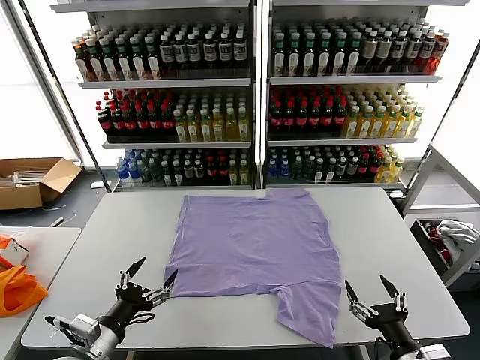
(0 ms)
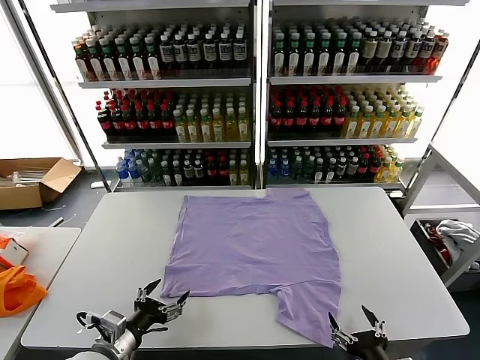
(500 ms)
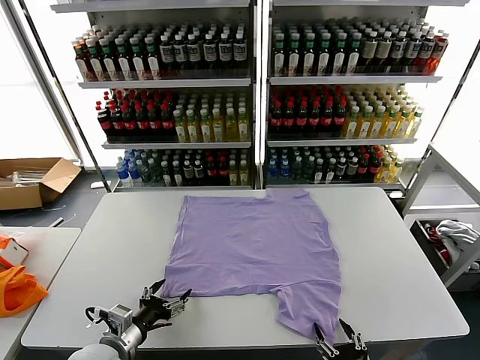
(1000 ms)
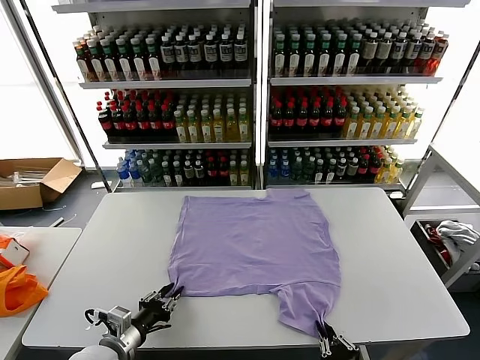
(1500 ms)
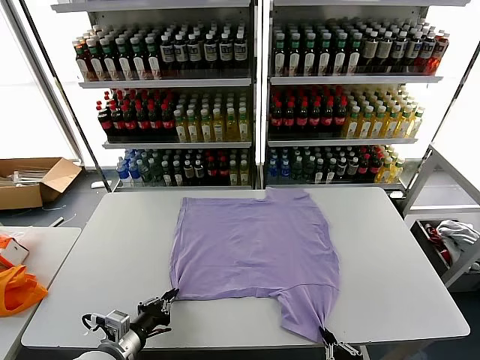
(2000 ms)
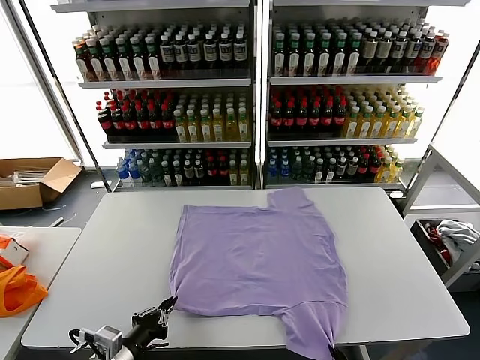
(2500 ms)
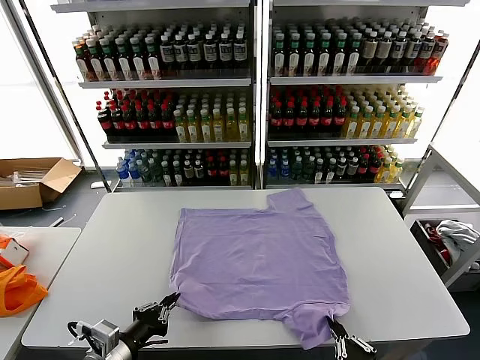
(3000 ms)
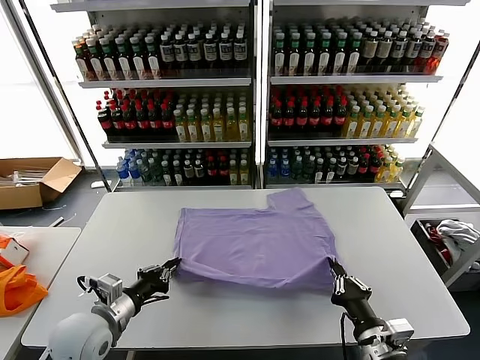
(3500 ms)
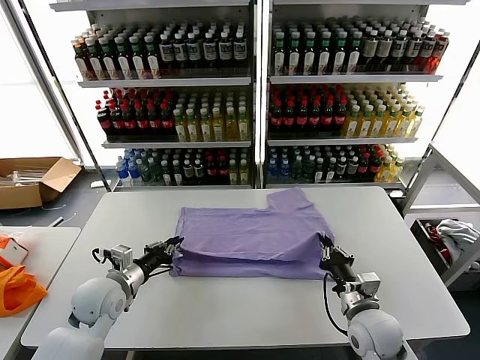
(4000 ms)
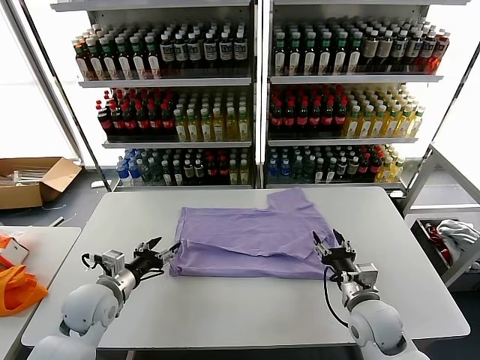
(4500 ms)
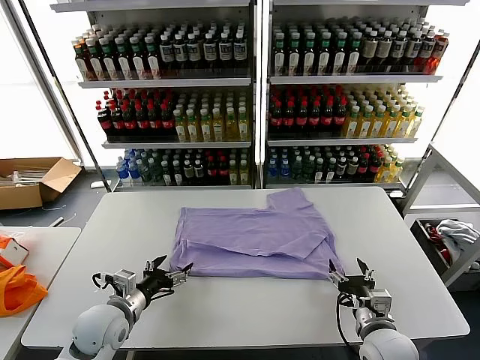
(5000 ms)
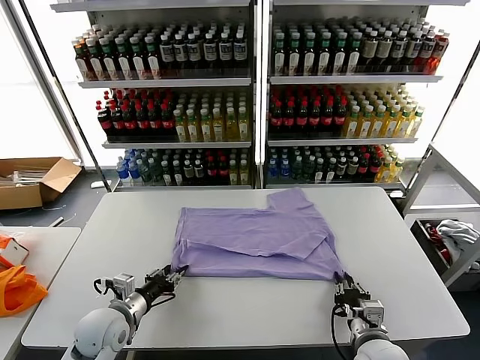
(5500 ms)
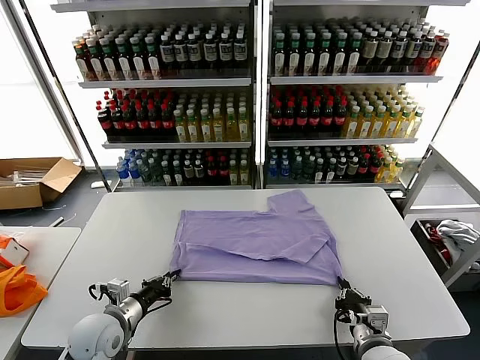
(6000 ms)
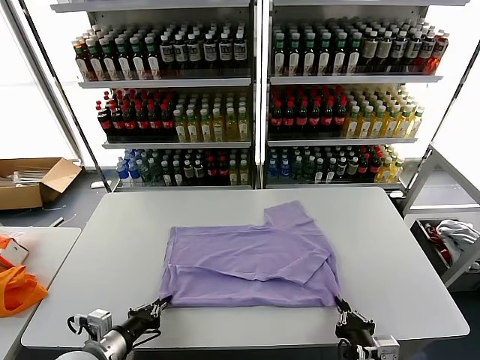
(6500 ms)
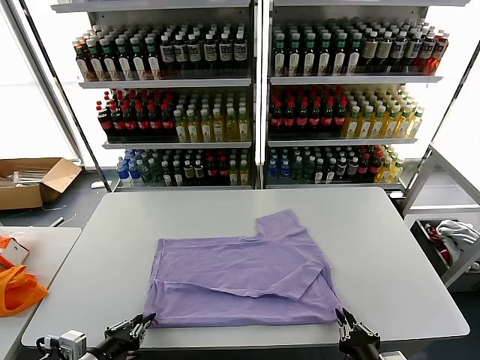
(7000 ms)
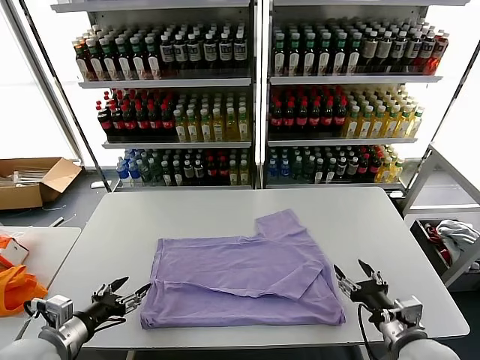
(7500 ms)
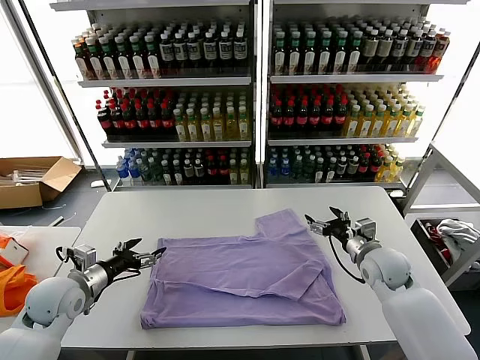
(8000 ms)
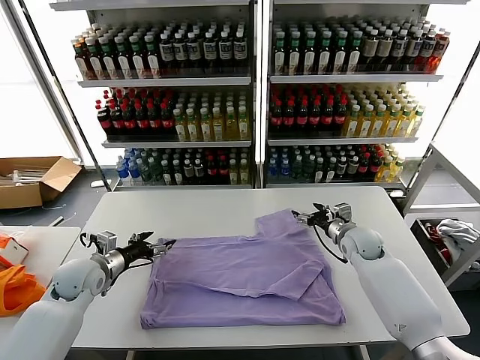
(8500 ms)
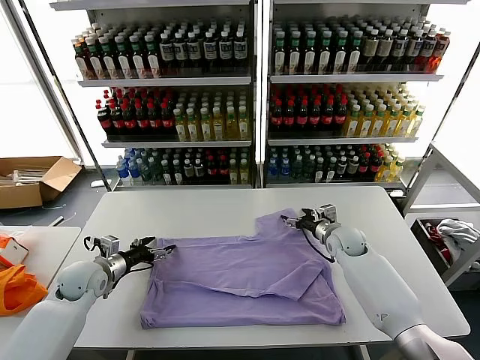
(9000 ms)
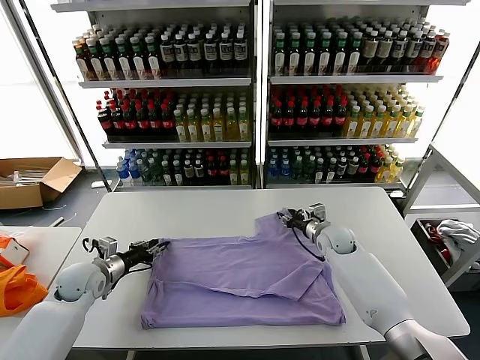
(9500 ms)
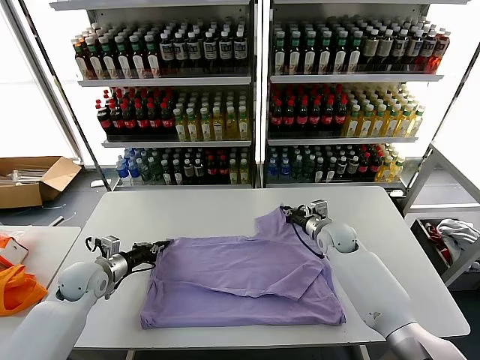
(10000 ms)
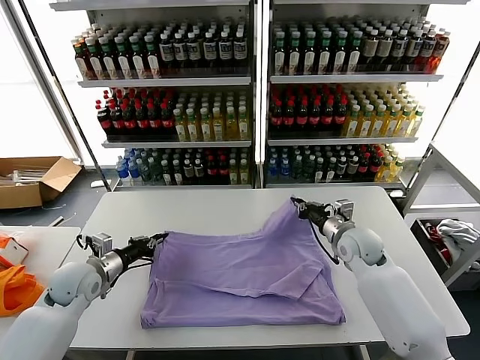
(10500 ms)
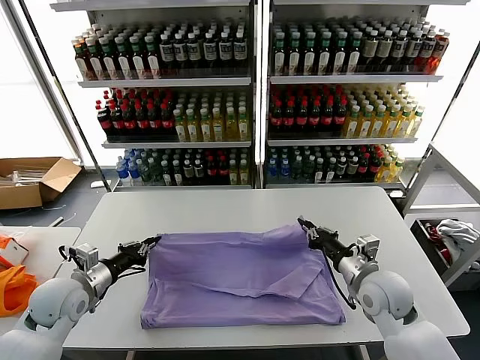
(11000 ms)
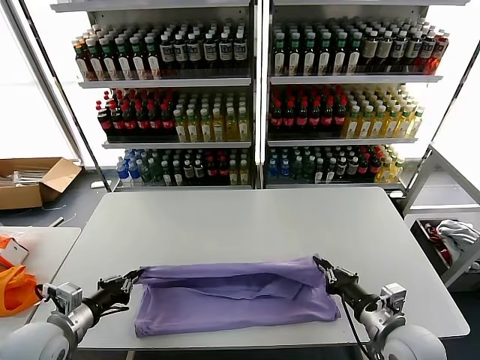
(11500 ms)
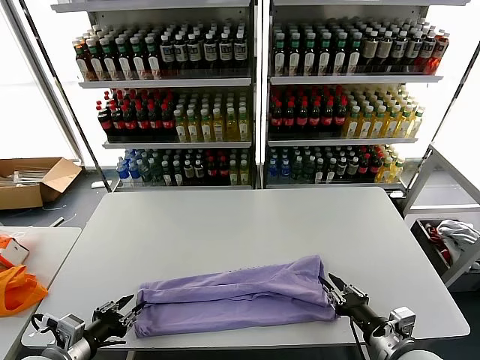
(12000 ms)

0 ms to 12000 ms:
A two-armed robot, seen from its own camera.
Task of the whole recording: fold and organize the clothes.
Step, 0 ms to 1500 ms: use both grippers simultaneously to clamp the lower edge of the clothing fabric.
Step, 2000 ms to 4000 ms: use both grippers to drag the lower edge of the fabric forward and fold it over the upper edge.
Step, 4500 ms to 7000 ms: Drag the clothes downward with both gripper.
Step, 7500 ms to 9500 ms: use both grippers simultaneously to clamp the upper edge of the clothing fabric.
Step, 10000 ms to 12000 ms: use both grippers to drag the upper edge of the fabric backward and fold it over the lower edge.
2000 ms to 4000 ms: The left gripper shifts approximately 15 cm forward. Meanwhile the right gripper is displaced forward by approximately 25 cm.
4000 ms to 6000 ms: Both grippers move backward, some 10 cm. The left gripper opens, then closes again, while the right gripper opens and closes again.
6000 ms to 8000 ms: The left gripper shifts about 10 cm to the left, forward and upward, and opens, while the right gripper moves forward, some 25 cm, and opens its fingers.
8000 ms to 10000 ms: The right gripper moves to the left and forward, about 10 cm, and closes. The left gripper is displaced forward by some 5 cm, and closes up.
10000 ms to 12000 ms: Both grippers move backward, some 25 cm. The left gripper opens up. Meanwhile the right gripper opens its fingers.

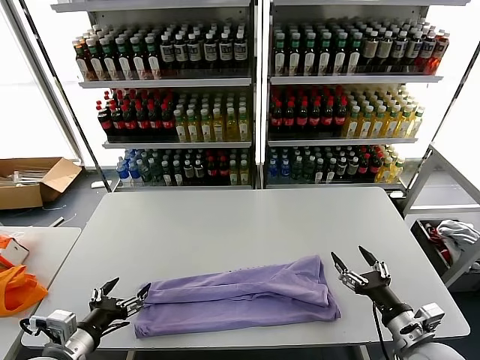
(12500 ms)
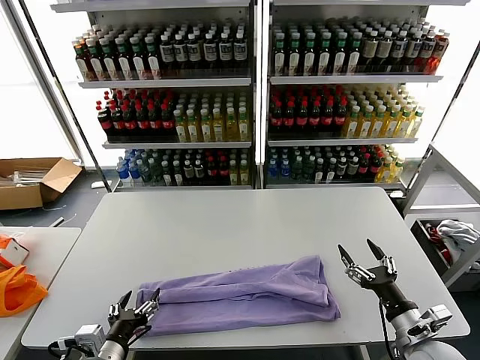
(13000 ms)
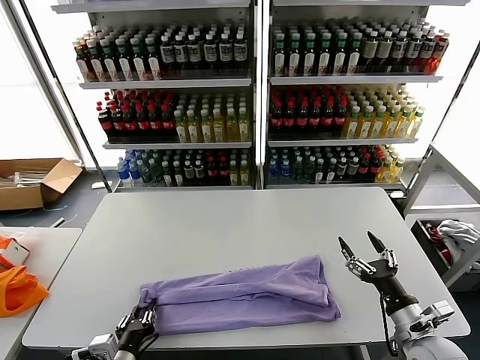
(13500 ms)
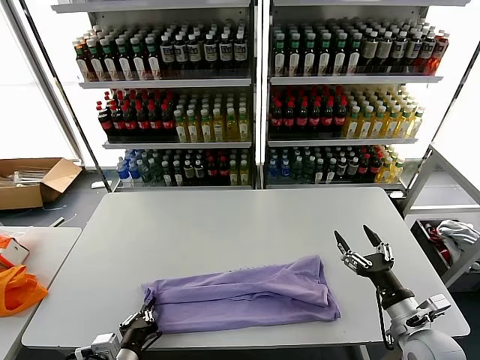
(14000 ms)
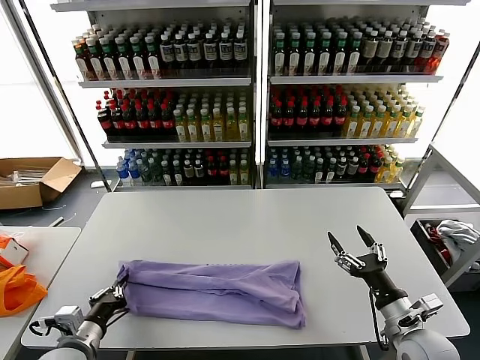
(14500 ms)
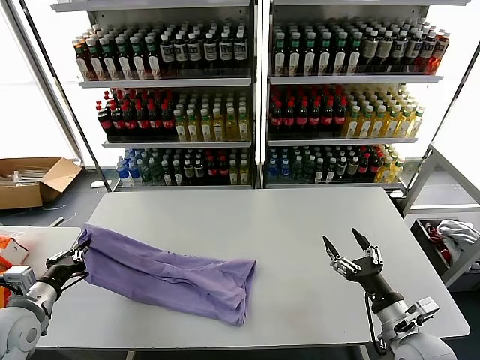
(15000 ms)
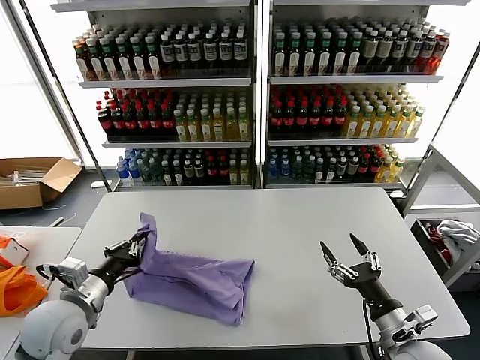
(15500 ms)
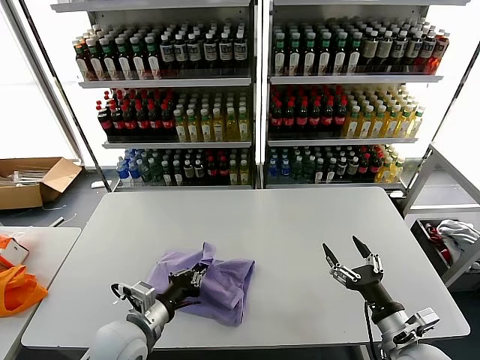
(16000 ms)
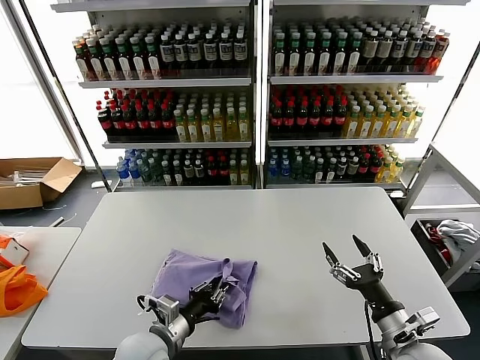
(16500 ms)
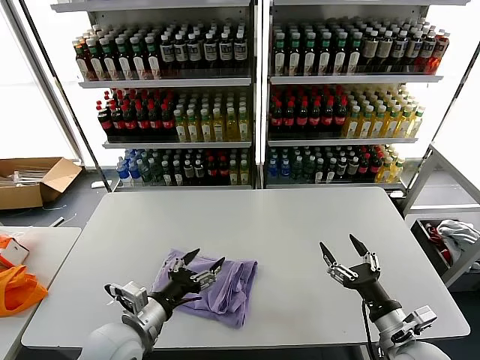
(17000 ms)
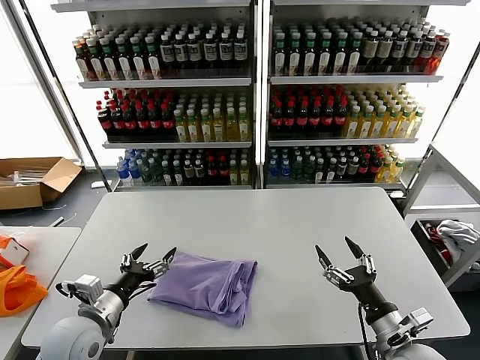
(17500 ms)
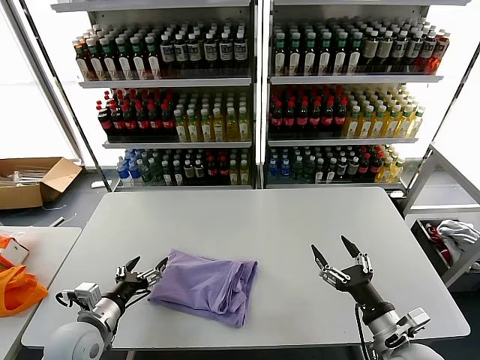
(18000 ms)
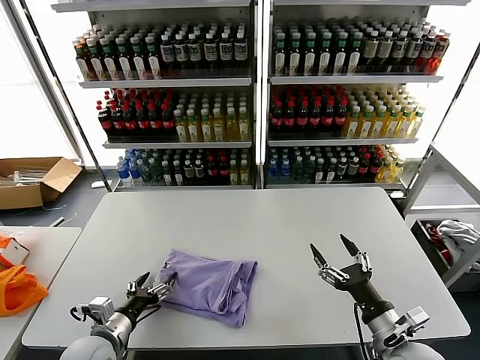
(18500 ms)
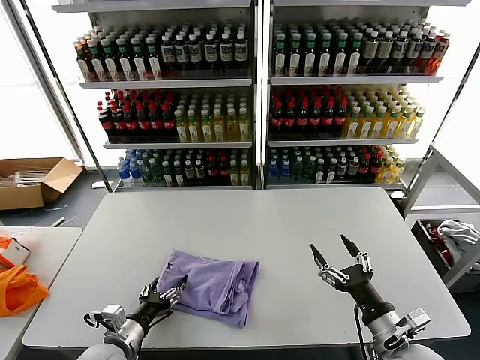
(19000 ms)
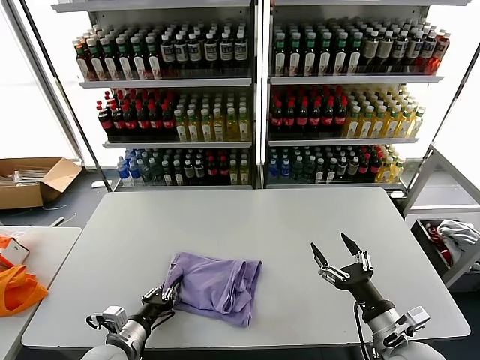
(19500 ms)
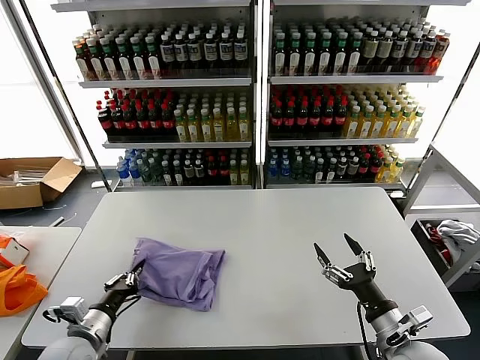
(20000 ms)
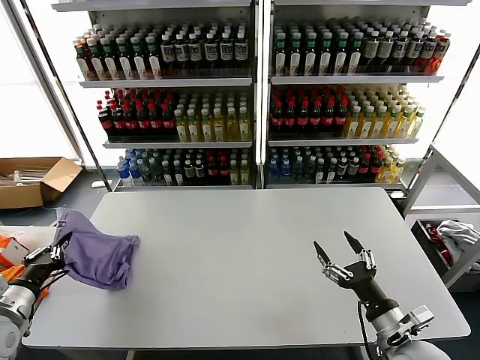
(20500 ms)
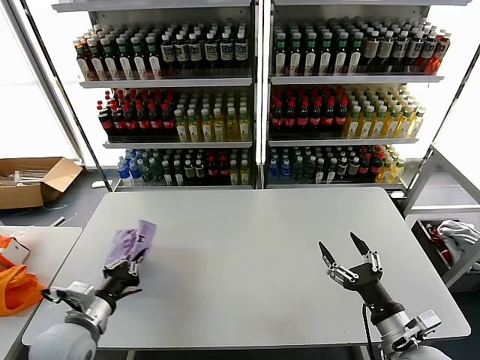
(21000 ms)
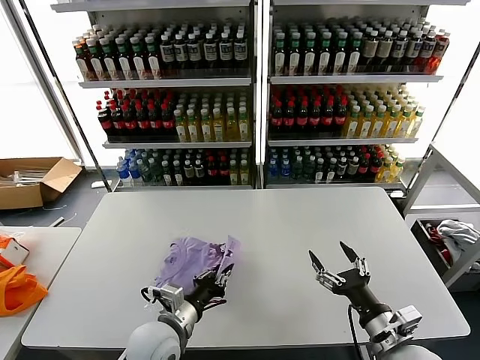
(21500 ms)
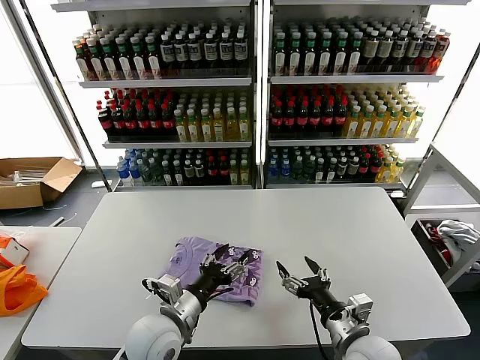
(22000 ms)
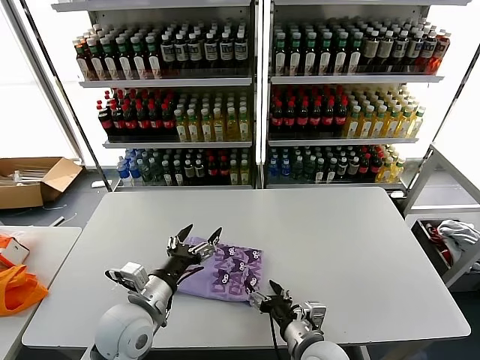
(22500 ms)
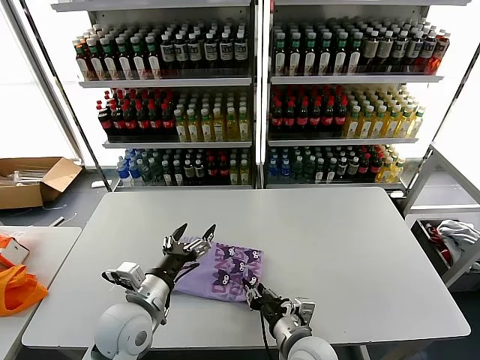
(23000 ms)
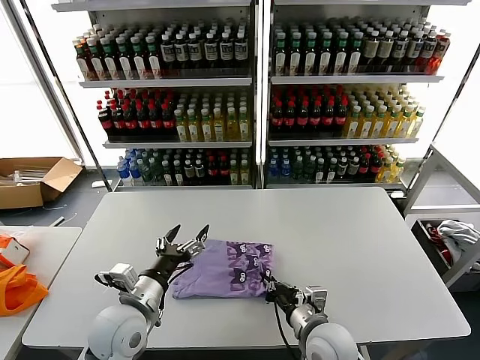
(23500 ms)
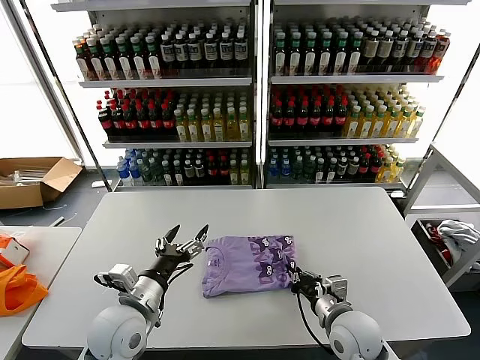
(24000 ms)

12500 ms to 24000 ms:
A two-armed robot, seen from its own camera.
Task of the whole recording: fold and organize the clothes.
Step, 12500 ms to 13500 ms: use the left gripper to clamp the left edge of the fabric.
Step, 14000 ms to 16500 ms: use the left gripper to drag the left edge of the fabric to the left and folds it over the right edge.
Step, 17000 ms to 21500 ms: Flip the folded clothes over with left gripper.
12500 ms to 14500 ms: The left gripper travels to the right and back again, some 10 cm each way, and closes up.
14500 ms to 16500 ms: The left gripper is displaced to the right by approximately 15 cm.
16500 ms to 18500 ms: The left gripper shifts roughly 10 cm to the left, and opens.
18500 ms to 20000 ms: The left gripper closes up.
20000 ms to 22000 ms: The right gripper heads to the left, covering approximately 10 cm. Meanwhile the left gripper is displaced to the right by about 20 cm, and opens its fingers.
22000 ms to 24000 ms: The left gripper travels to the left by some 5 cm. The right gripper travels forward by approximately 5 cm, moves roughly 10 cm to the left and comes back, and closes its fingers.

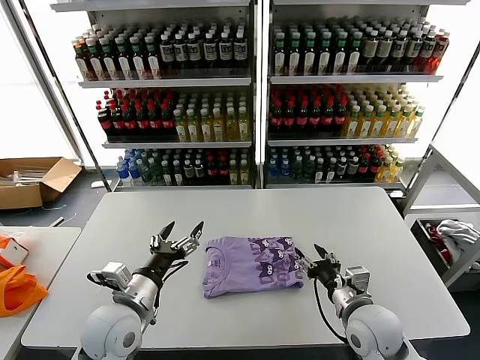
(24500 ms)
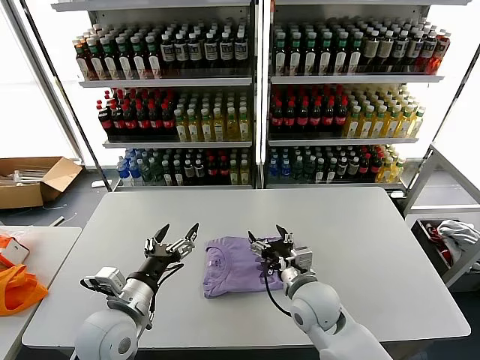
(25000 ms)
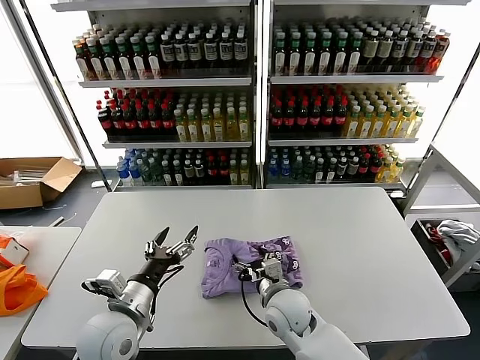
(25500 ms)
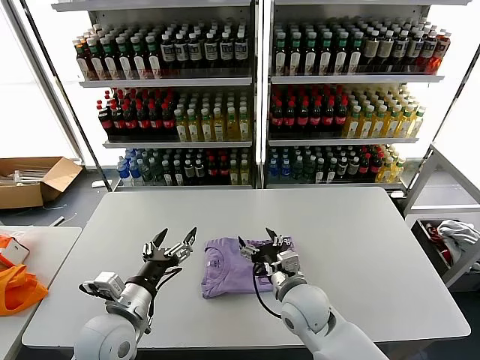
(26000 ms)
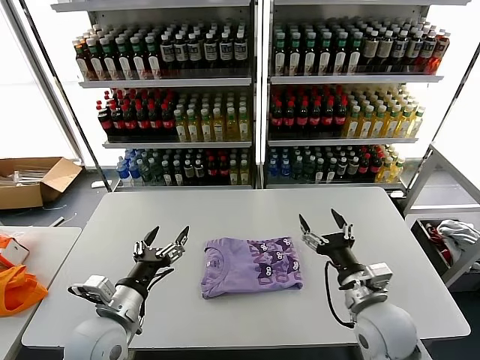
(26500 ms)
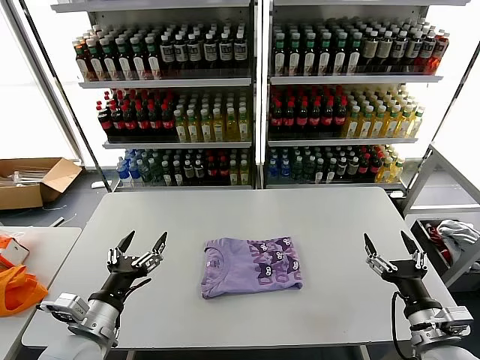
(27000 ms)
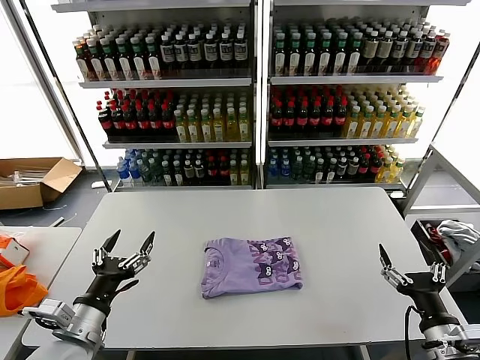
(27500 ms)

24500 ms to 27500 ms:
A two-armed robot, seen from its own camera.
Task of the whole recording: fold and organize the clothes.
24500 ms to 26000 ms: The right gripper goes about 15 cm to the left, and opens its fingers.
26000 ms to 27500 ms: The right gripper is displaced to the right and backward by some 30 cm; the left gripper heads to the left and backward, covering approximately 10 cm.
